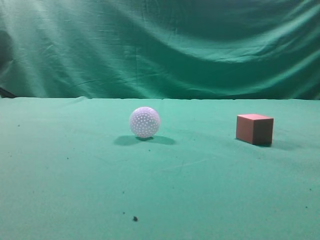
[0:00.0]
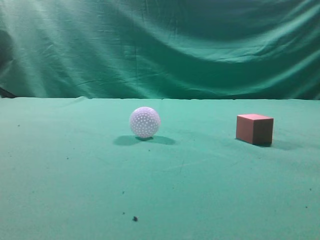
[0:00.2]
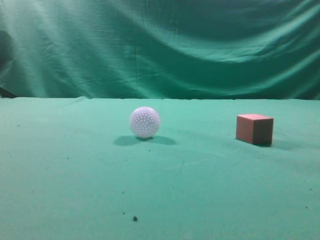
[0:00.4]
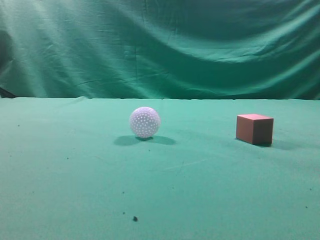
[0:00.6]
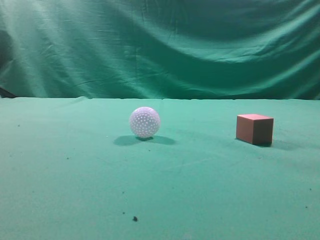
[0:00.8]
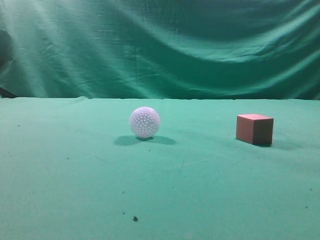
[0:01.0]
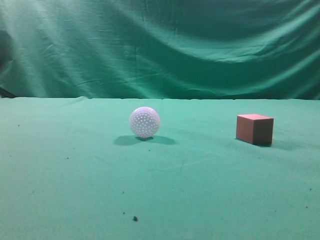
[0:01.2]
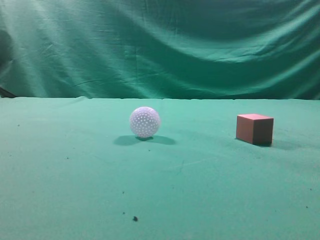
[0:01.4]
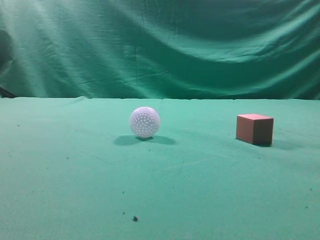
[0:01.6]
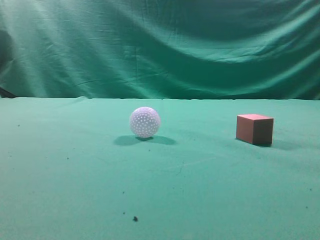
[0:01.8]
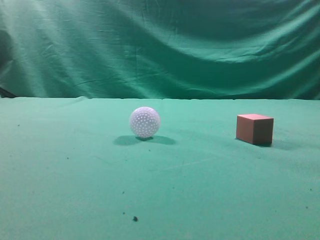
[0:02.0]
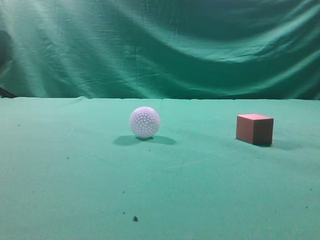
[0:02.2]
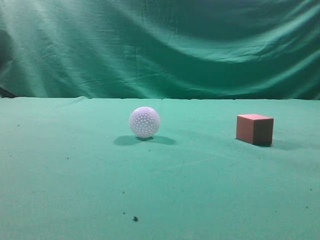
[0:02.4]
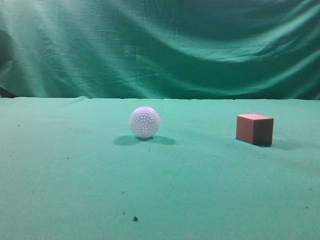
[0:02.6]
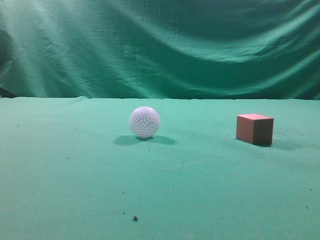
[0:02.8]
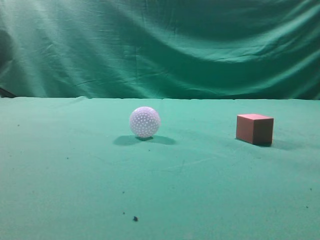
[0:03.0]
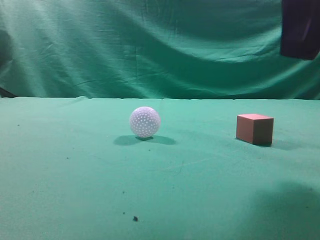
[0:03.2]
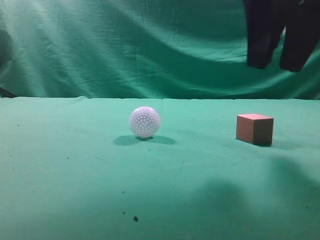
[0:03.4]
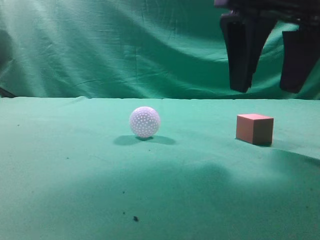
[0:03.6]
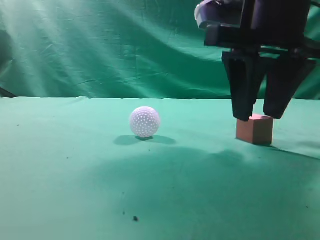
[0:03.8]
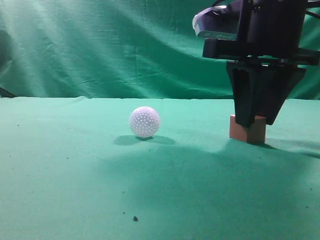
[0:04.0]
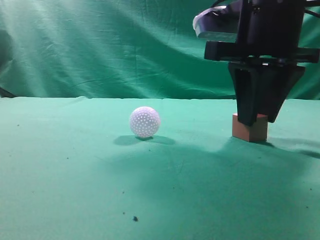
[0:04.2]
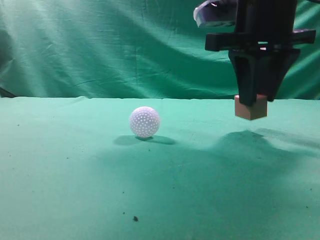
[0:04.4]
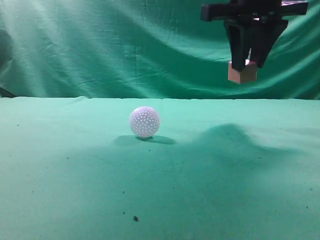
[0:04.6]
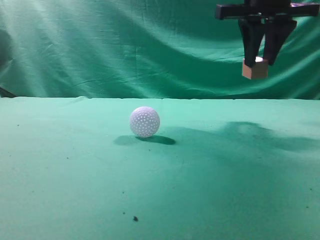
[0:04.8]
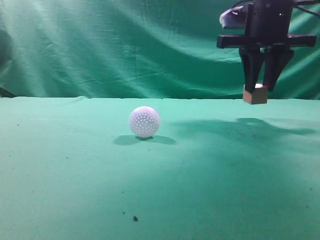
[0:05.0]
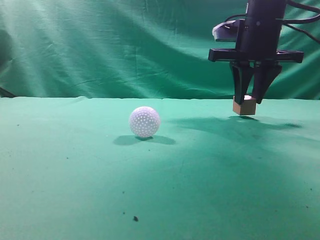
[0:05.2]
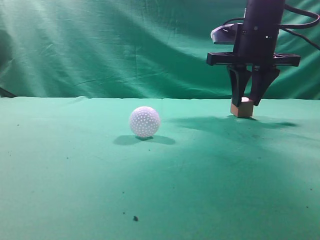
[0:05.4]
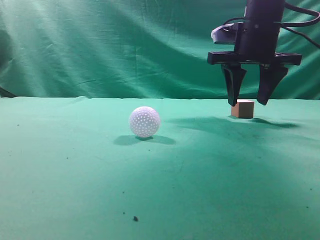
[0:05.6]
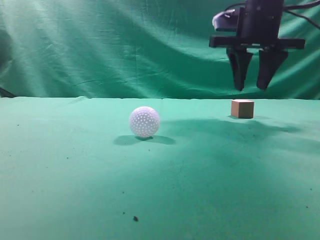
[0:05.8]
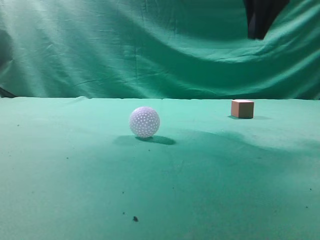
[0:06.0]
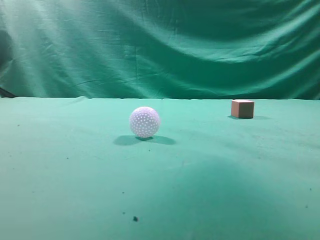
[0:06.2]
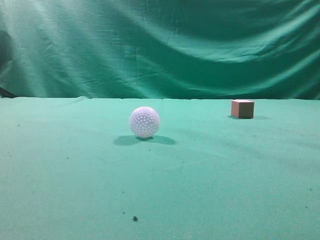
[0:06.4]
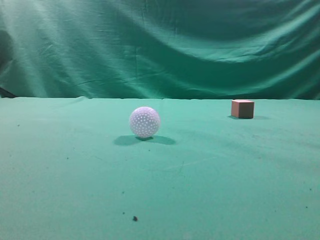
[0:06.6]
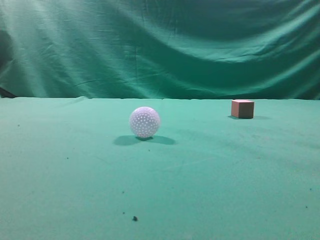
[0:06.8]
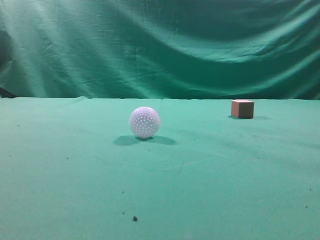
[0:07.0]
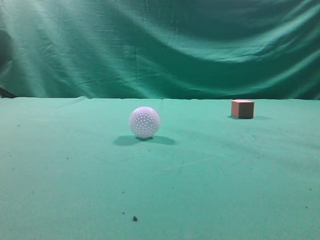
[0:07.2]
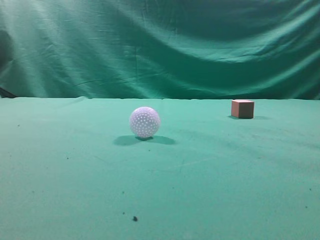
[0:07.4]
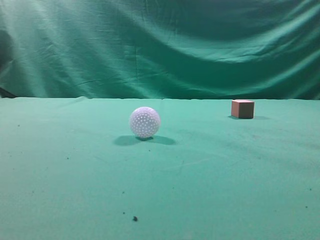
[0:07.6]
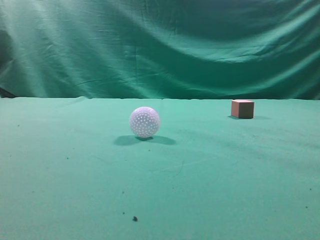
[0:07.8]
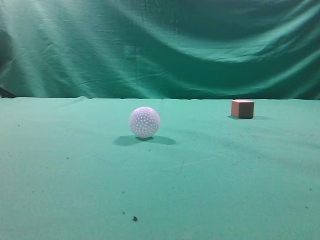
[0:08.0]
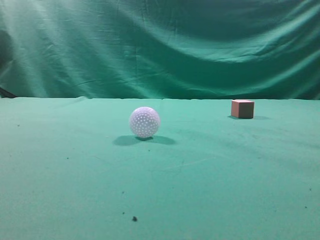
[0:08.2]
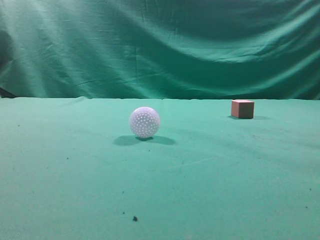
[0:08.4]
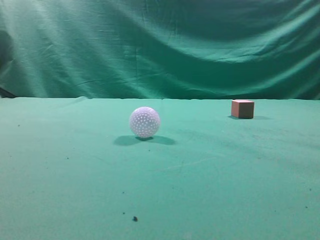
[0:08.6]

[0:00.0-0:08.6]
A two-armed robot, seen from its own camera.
Task of the whole recording: pick up the cube block and place it in another position on the table.
Step, 0:00.0 to 0:04.2: Pick up the small cube.
Step, 0:04.4 to 0:05.8: Place the small cube on the ahead of the table.
0:02.8 to 0:04.4: The right gripper shifts roughly 15 cm forward and to the left, and opens up.
0:04.4 to 0:05.8: The right gripper is displaced forward by approximately 10 cm, and opens and closes again.
0:05.8 to 0:07.2: The right gripper shifts roughly 35 cm backward.

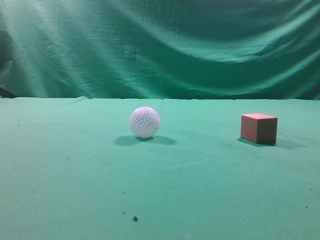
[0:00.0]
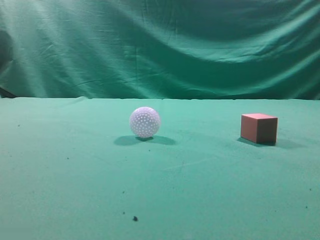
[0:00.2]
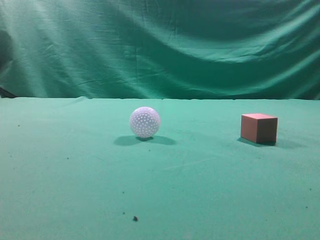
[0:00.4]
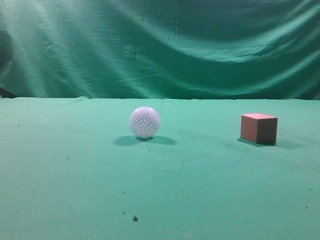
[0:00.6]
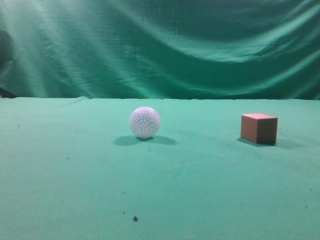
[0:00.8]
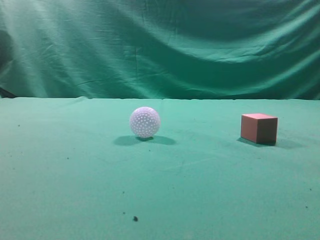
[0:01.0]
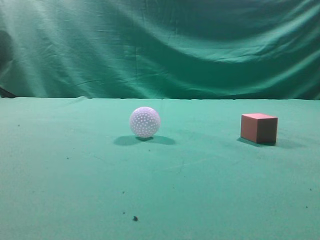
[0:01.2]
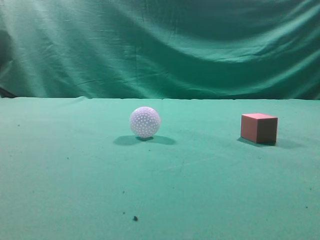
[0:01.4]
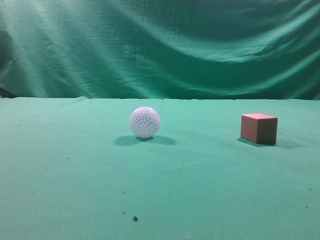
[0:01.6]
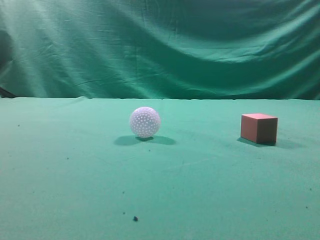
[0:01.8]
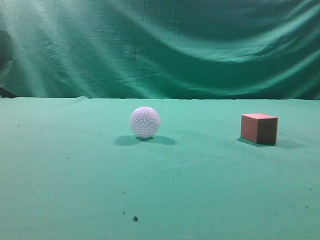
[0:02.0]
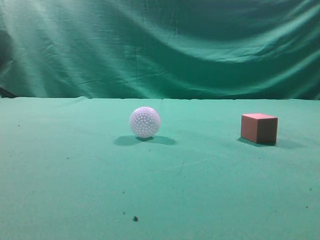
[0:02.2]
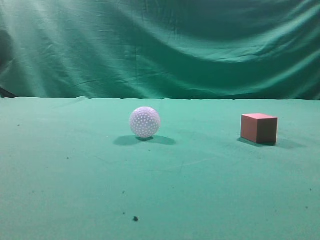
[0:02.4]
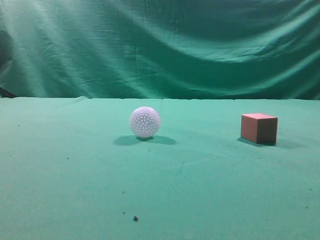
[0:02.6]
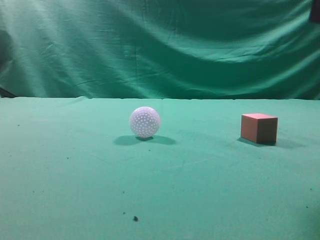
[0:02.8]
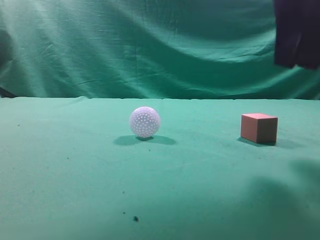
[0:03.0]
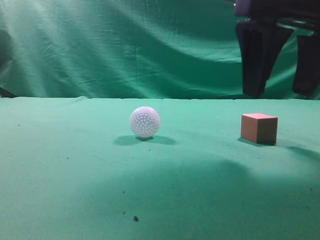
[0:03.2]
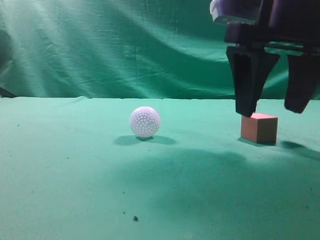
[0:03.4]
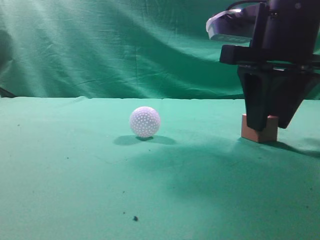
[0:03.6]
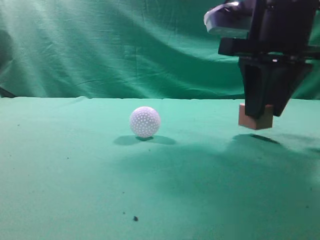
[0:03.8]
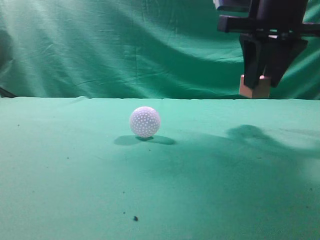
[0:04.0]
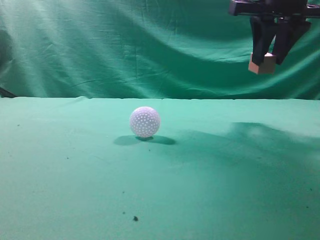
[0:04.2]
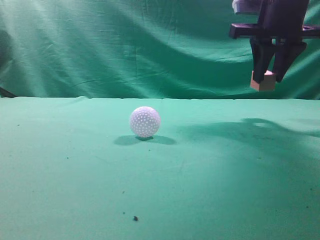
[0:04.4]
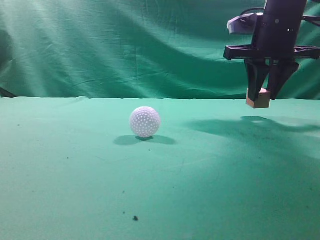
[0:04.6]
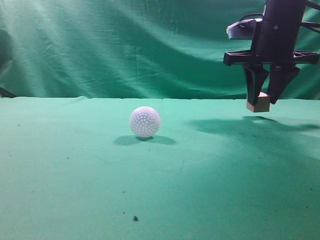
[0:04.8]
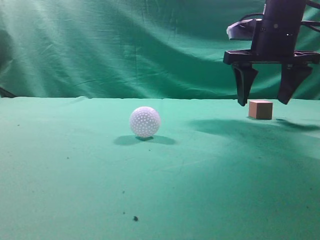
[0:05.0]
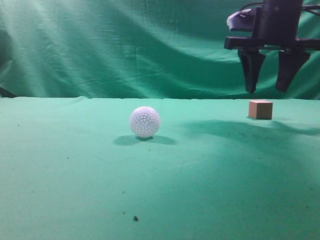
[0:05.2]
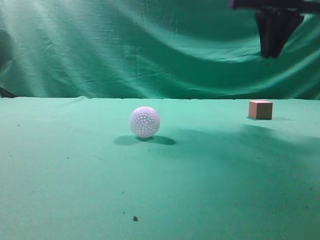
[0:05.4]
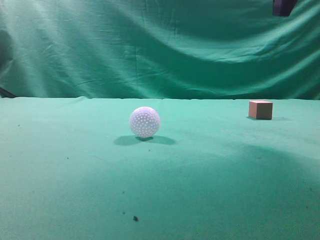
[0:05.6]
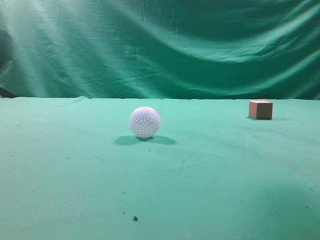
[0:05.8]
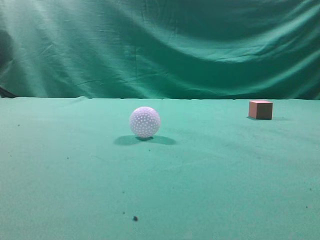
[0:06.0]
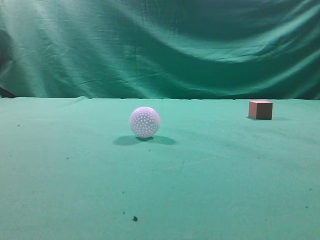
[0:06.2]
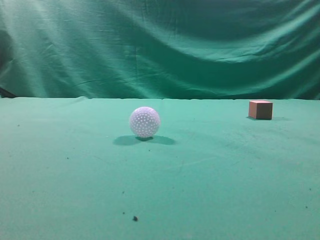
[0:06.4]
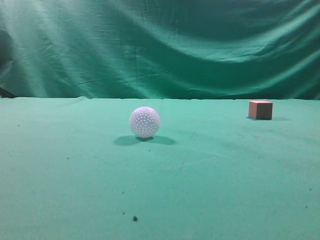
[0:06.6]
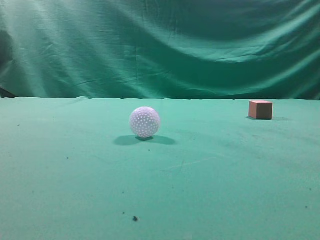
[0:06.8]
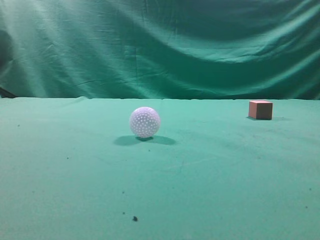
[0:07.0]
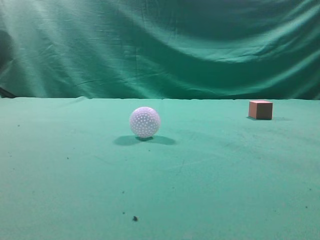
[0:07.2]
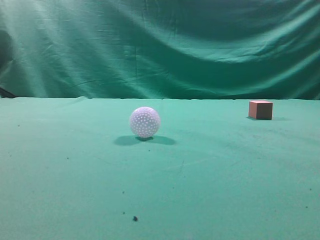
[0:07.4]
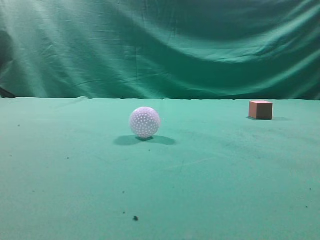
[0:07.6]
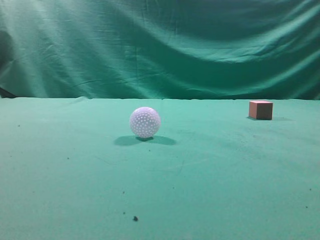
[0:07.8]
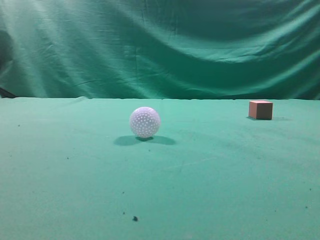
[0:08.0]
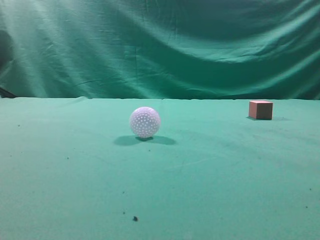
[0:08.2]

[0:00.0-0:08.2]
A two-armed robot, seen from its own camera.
Task of the whole recording: pick up the cube block and place it in another position on the table.
Step, 0:00.0 to 0:03.8: Pick up the small cube.
Step, 0:04.0 to 0:05.0: Place the small cube on the ahead of the table.
0:01.6 to 0:03.2: The right gripper is displaced forward and to the left by roughly 25 cm, and opens up.
0:03.2 to 0:05.0: The right gripper is displaced forward by some 15 cm, and closes and opens again.
0:05.0 to 0:06.6: The right gripper heads backward and upward, covering roughly 35 cm, and closes.
